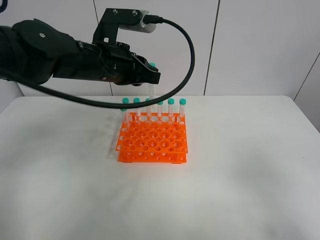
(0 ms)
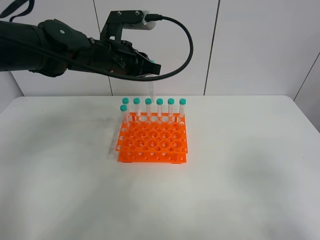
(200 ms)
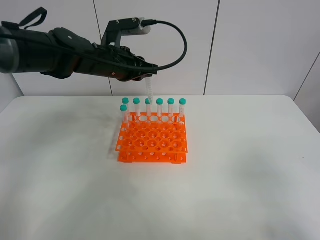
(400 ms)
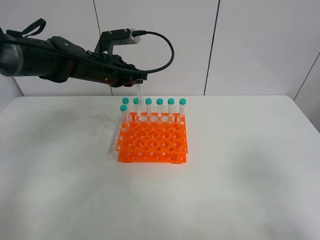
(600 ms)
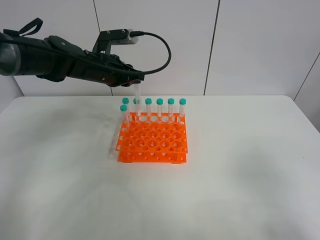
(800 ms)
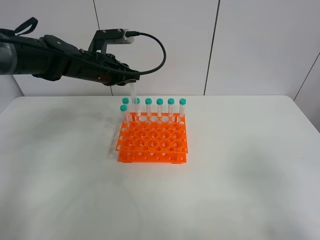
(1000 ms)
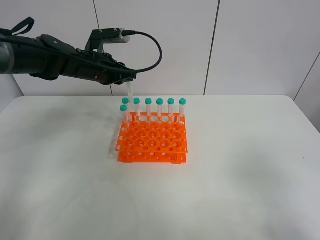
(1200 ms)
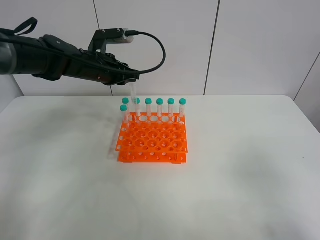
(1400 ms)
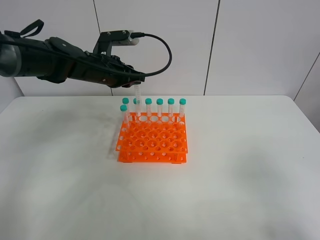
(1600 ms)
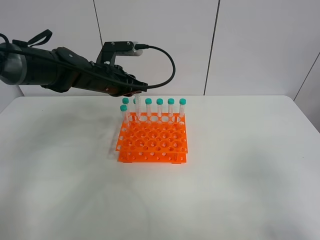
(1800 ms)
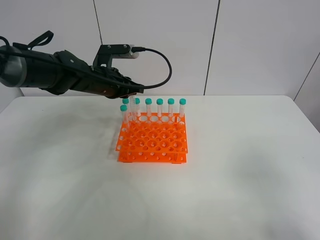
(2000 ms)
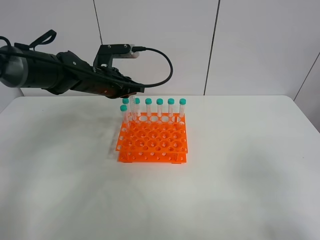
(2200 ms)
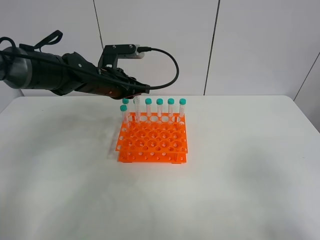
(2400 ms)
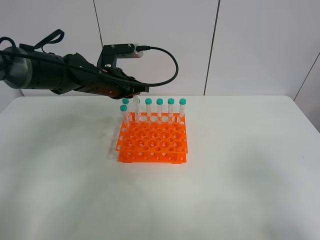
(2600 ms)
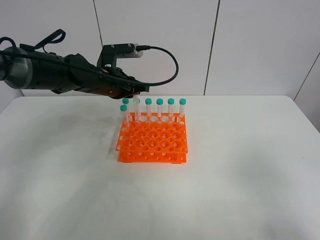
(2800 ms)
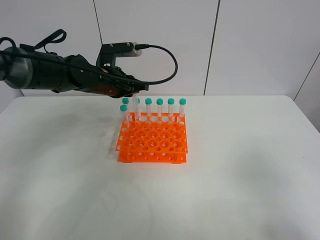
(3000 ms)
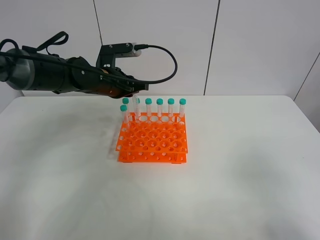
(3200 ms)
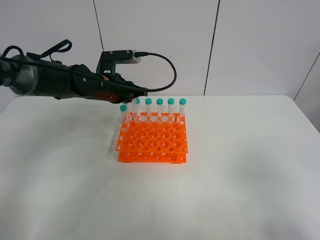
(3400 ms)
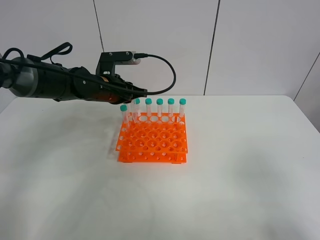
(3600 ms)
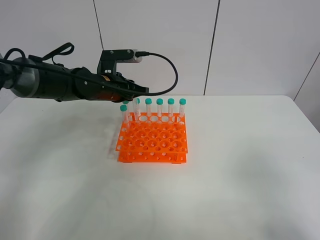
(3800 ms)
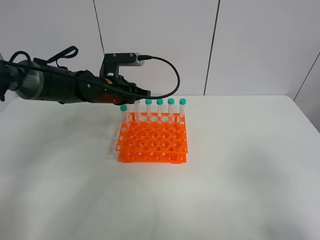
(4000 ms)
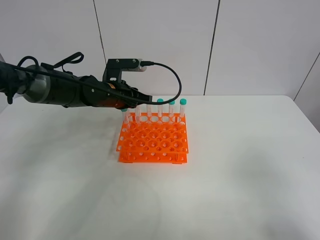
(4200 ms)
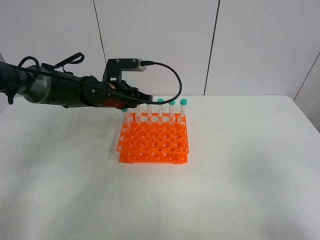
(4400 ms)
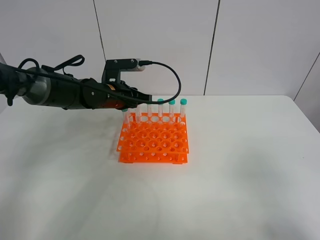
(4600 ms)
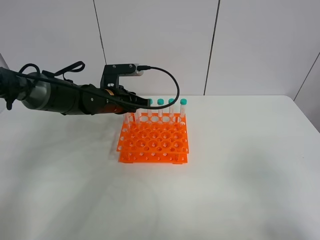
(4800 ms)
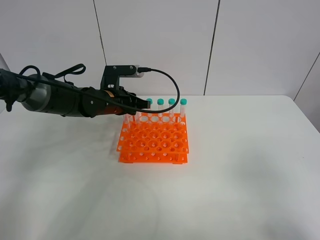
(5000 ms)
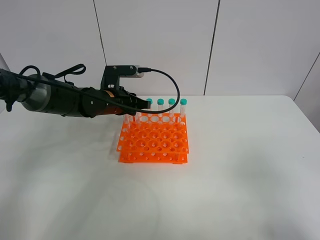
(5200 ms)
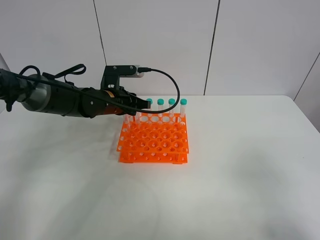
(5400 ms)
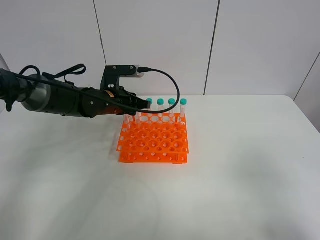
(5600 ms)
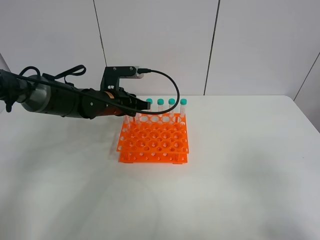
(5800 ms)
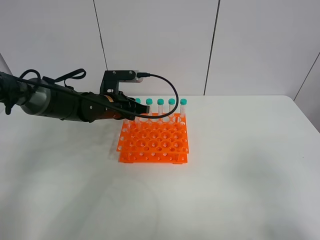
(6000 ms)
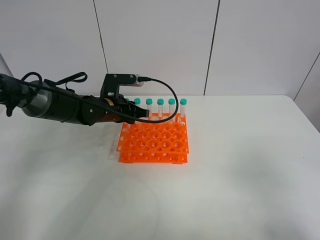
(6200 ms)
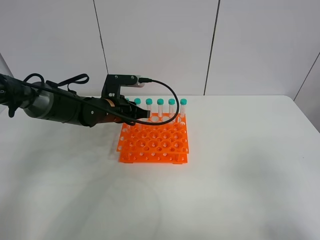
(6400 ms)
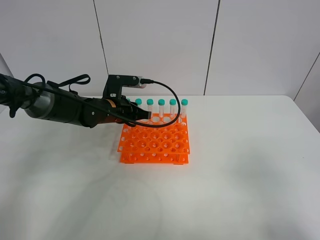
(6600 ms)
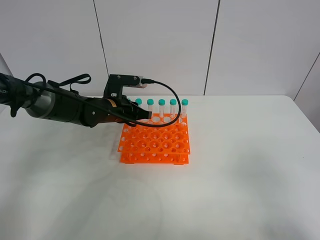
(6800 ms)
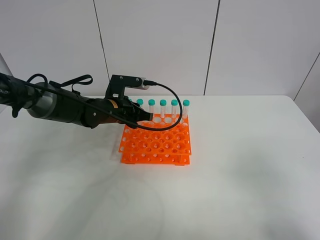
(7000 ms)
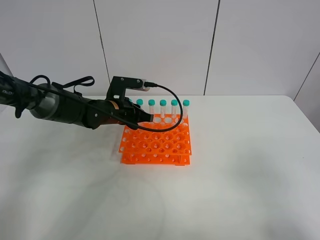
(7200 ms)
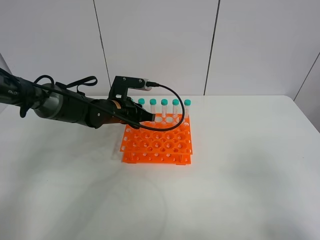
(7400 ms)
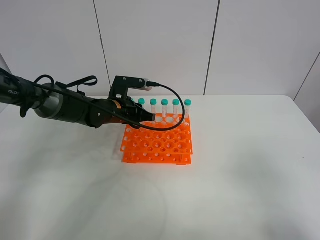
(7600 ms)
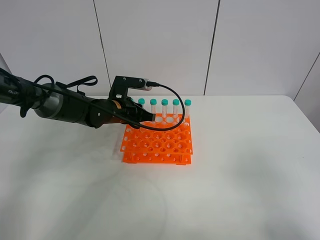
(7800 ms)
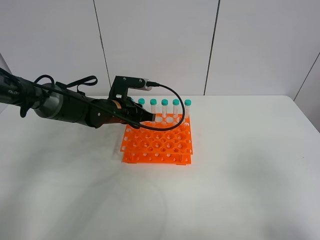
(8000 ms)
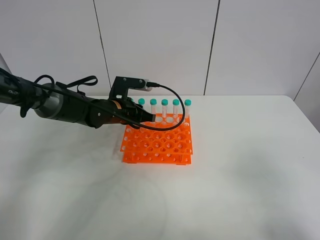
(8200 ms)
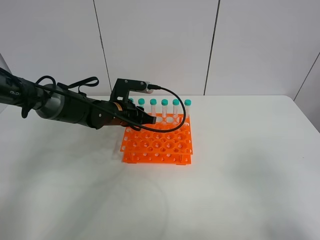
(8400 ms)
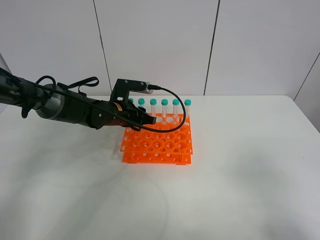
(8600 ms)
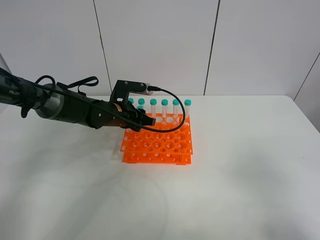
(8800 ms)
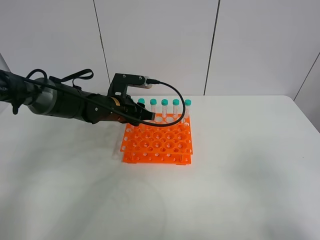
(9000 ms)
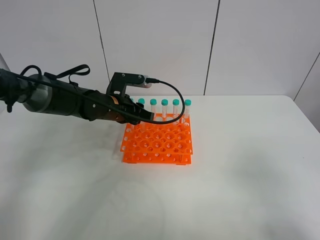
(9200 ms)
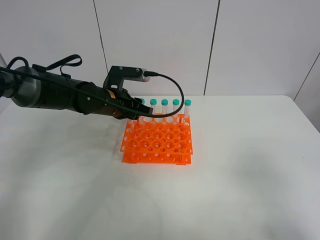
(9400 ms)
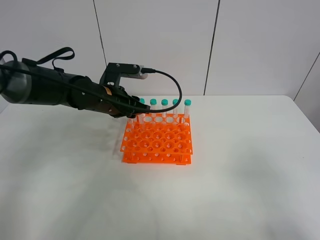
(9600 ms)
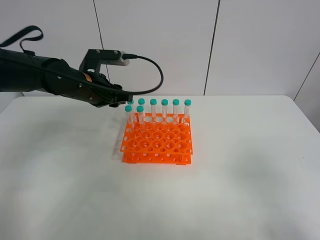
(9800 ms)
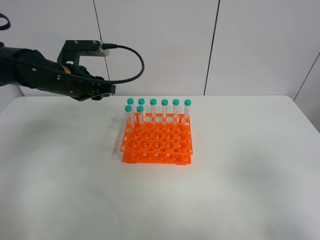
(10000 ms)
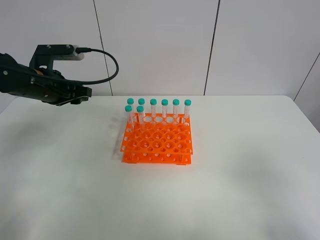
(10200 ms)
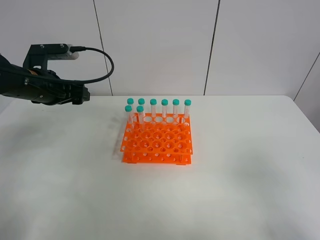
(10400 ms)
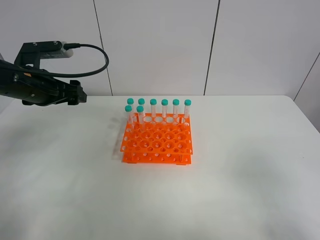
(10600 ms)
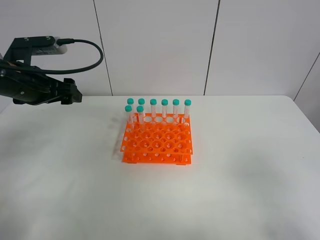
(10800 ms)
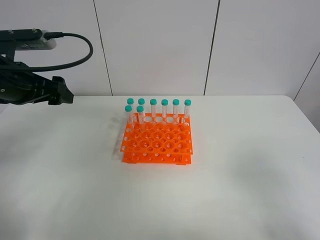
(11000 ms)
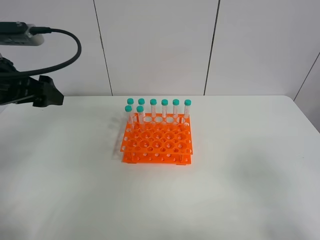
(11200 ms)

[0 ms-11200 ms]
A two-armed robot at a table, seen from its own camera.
Task of the whole recording: Put the test tube on the table back onto the test tube rack.
Step, 0 ms to 8600 ms: Place the test tube on the test tube rack with the left gripper.
0 ms to 1600 ms: The left gripper heads forward and downward, covering approximately 10 cm.
1600 ms to 3200 ms: The grippers stay close to where they were, moving slightly.
3200 ms to 4800 ms: The grippers make only small movements.
4800 ms to 8000 ms: The grippers make only small movements.
8000 ms to 9600 ms: The left gripper shifts roughly 5 cm upward.
9600 ms to 11200 ms: The left gripper travels to the left, upward and backward by about 20 cm, and opens up.

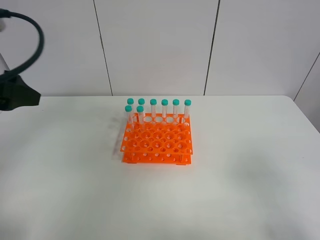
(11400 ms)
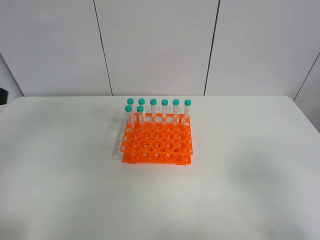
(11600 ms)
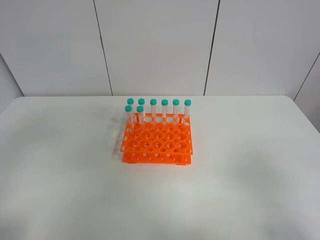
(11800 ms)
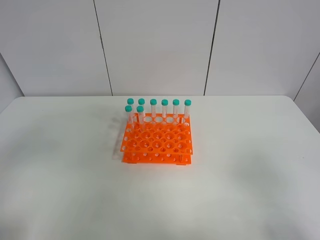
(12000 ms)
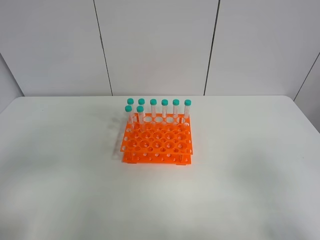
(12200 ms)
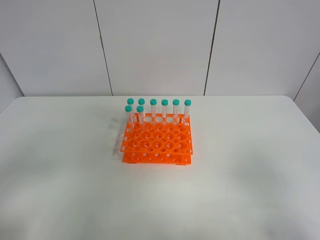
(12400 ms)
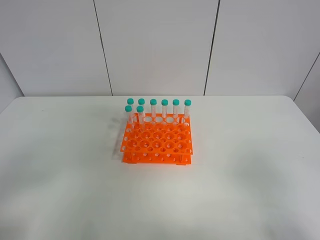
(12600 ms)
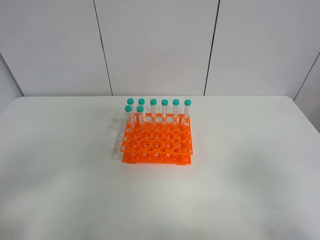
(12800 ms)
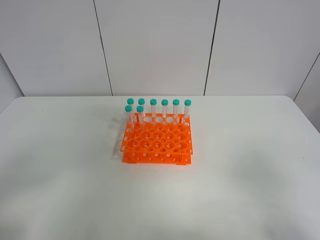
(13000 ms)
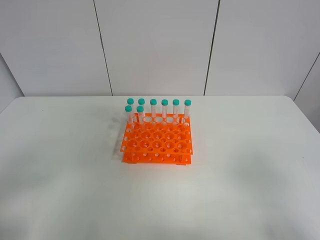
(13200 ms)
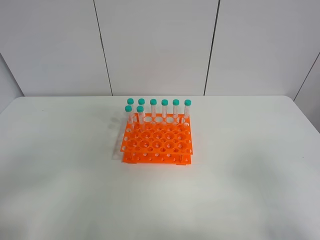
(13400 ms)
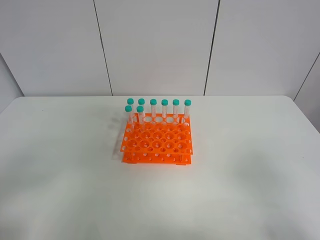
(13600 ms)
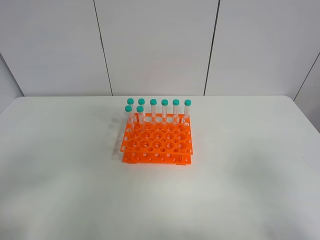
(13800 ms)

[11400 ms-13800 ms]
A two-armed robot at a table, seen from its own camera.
Task of the whole recording: Put the test tube on the table back onto the test tube rack.
11400 ms to 12600 ms: The left gripper travels backward and downward by approximately 20 cm.
12600 ms to 13800 ms: Both grippers stay about where they are.
